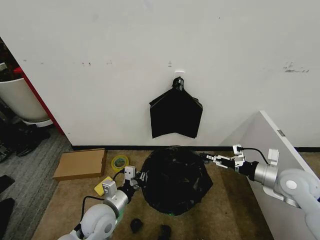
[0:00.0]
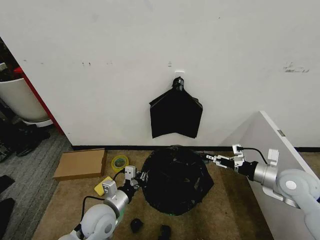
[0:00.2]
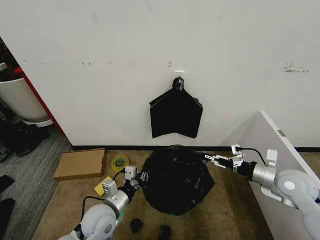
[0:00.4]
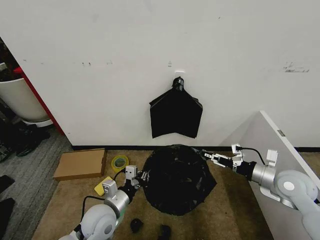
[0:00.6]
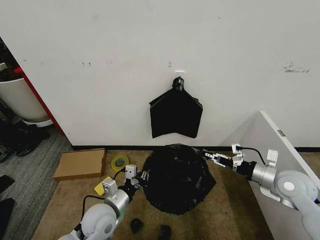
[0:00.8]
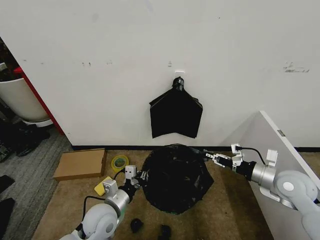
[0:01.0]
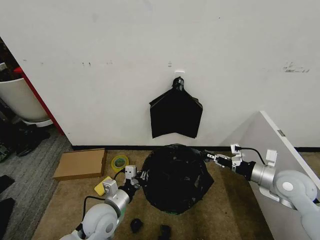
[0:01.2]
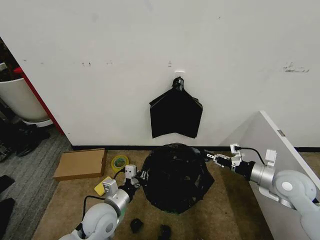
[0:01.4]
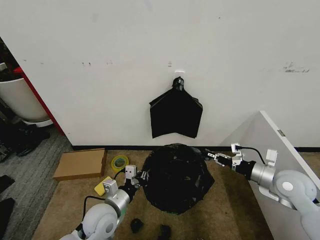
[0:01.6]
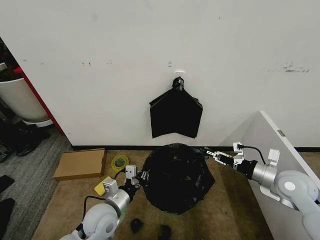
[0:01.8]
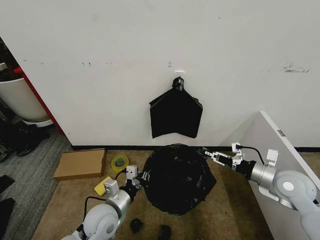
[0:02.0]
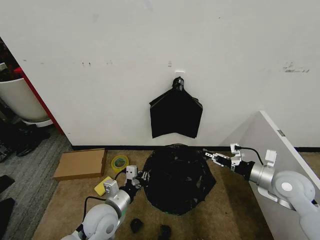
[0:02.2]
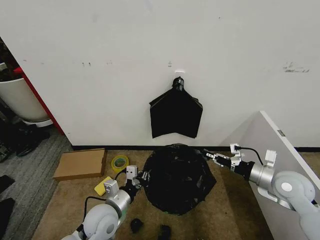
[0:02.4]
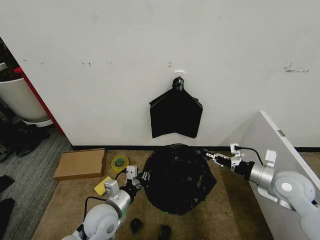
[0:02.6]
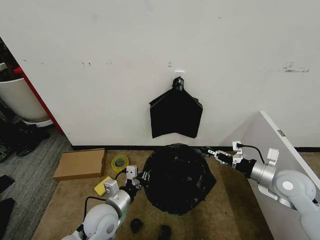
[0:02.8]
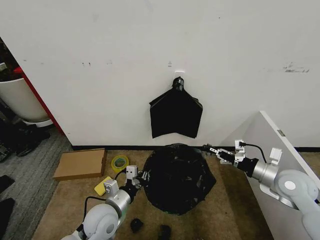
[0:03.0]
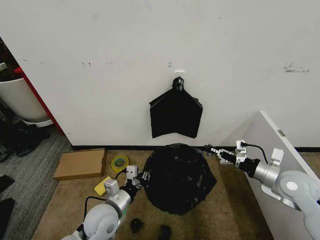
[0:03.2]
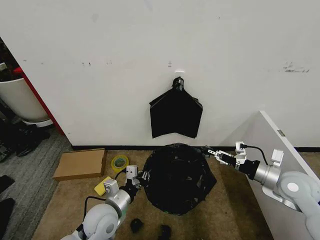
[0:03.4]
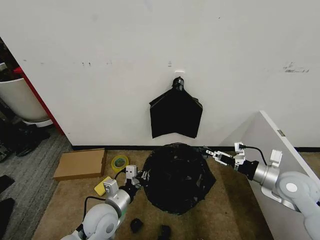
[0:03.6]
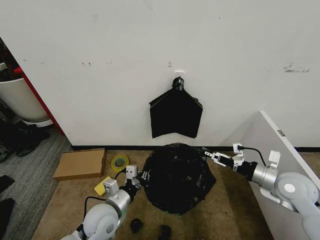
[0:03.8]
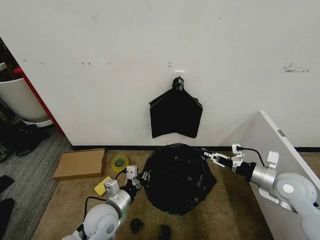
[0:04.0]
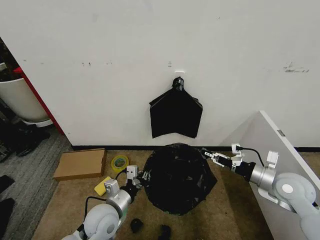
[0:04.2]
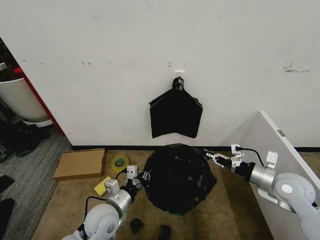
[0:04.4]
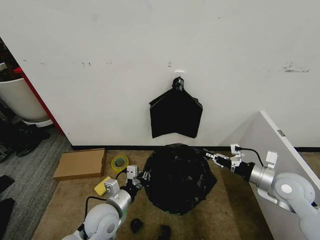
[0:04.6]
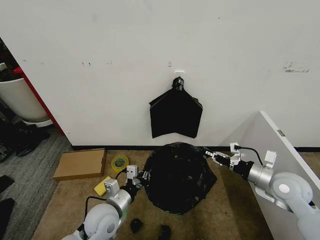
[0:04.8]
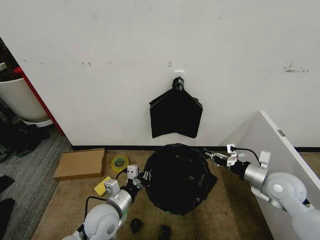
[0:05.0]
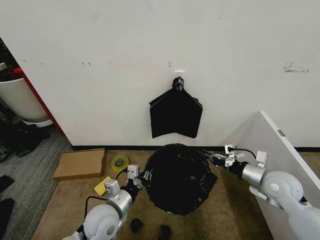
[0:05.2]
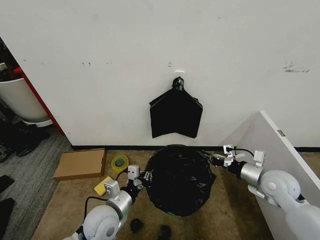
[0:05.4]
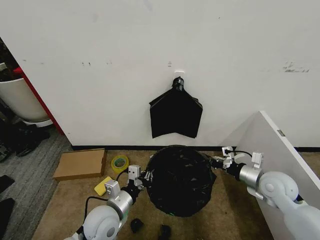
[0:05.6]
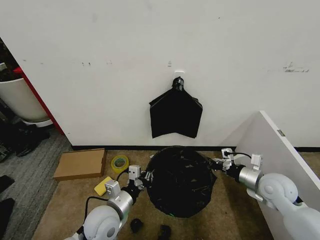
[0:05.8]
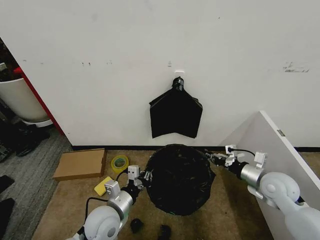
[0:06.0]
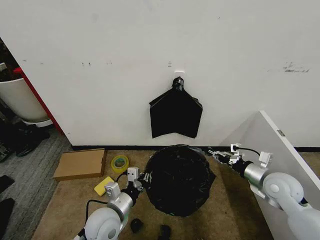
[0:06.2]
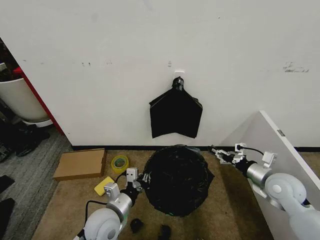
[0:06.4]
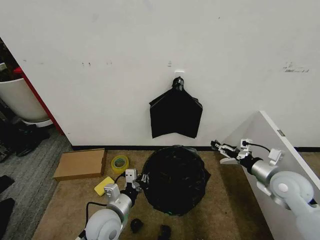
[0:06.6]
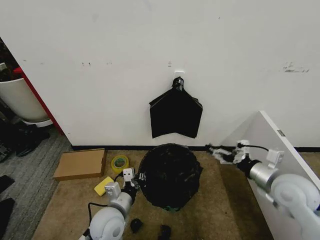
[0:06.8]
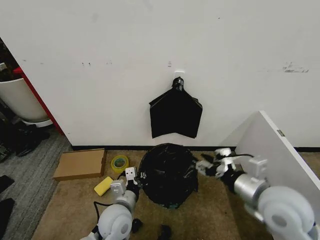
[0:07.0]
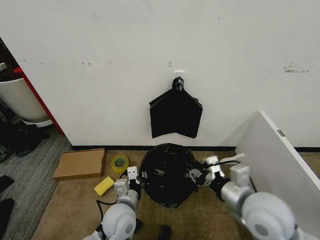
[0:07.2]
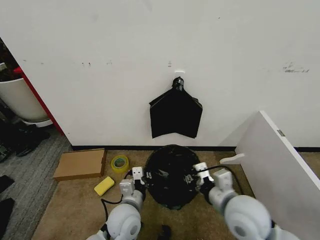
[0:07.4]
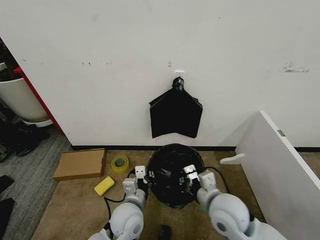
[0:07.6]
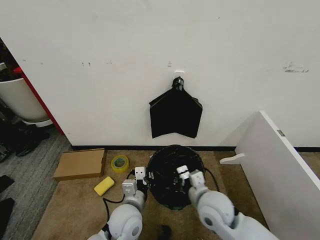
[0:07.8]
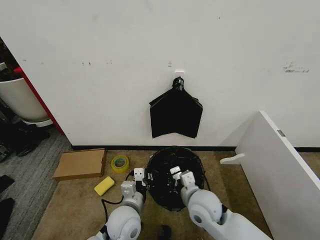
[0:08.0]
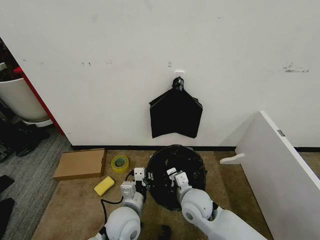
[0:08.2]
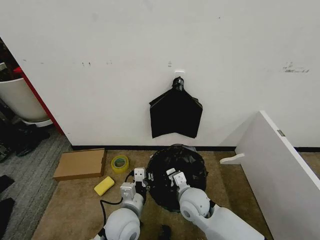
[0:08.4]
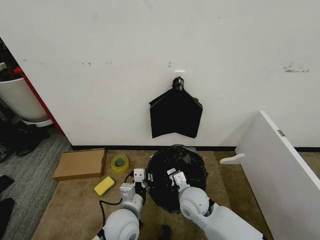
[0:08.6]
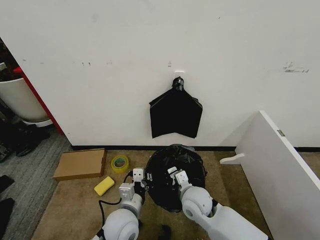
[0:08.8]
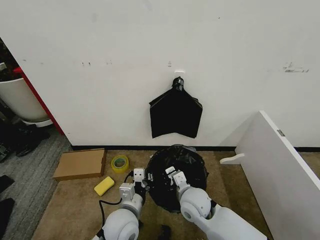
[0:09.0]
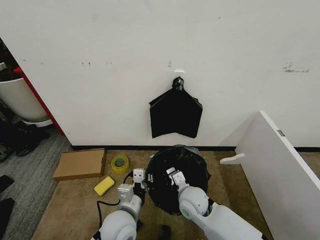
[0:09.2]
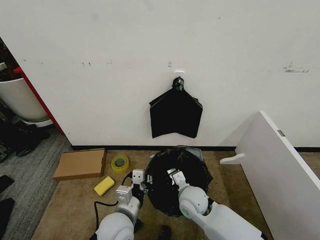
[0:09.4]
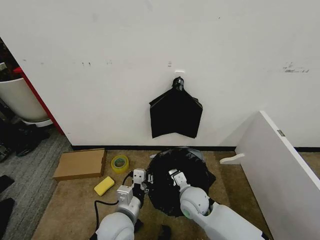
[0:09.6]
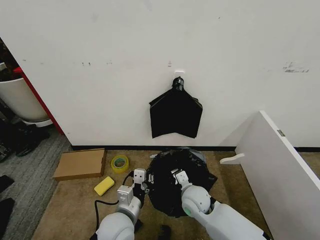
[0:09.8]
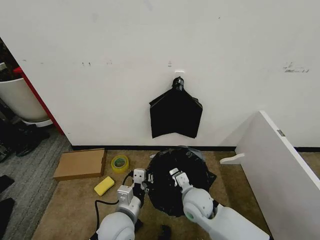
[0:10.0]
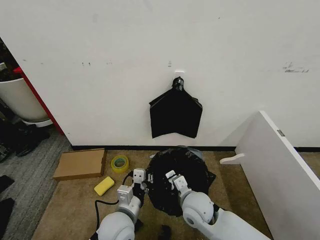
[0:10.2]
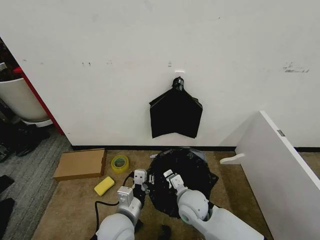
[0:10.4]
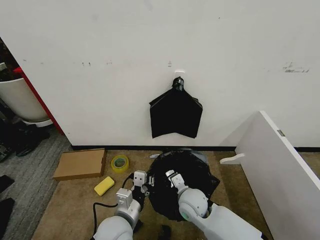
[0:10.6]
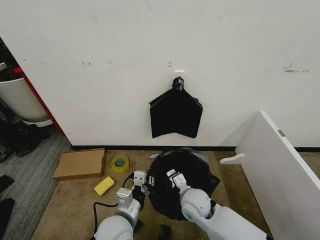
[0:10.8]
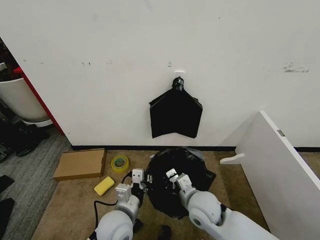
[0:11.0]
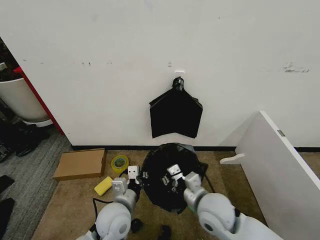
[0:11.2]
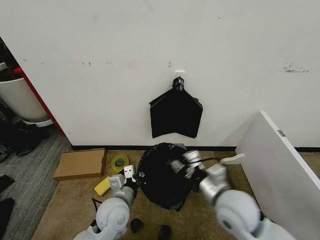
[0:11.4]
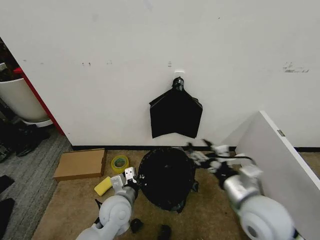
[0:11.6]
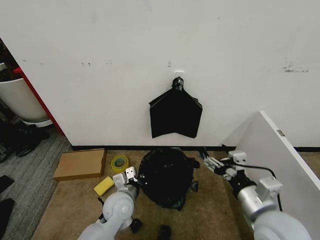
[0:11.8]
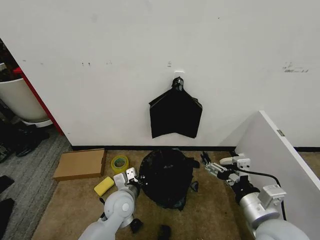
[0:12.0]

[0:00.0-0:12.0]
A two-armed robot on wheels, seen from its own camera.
Task of the whole recording: Place the garbage bag over the trash bin.
0:00.0 to 0:01.6: The right gripper closes.
0:01.6 to 0:03.0: The two grippers keep their place.
0:03.0 to 0:04.4: The right gripper opens and closes again.
0:04.4 to 0:06.0: The grippers make only small movements.
0:06.0 to 0:07.6: The left gripper heads to the right, covering roughly 5 cm, while the right gripper goes approximately 20 cm to the left, and opens, then closes again.
0:07.6 to 0:09.0: The right gripper heads downward and to the left, covering roughly 10 cm.
0:09.0 to 0:10.4: The grippers make only small movements.
0:10.4 to 0:12.0: The right gripper travels to the right, upward and backward by approximately 25 cm, and opens its fingers. The left gripper moves forward, roughly 10 cm.

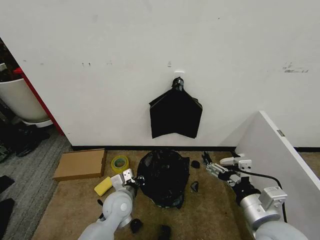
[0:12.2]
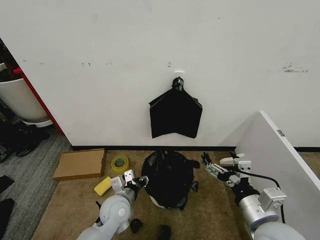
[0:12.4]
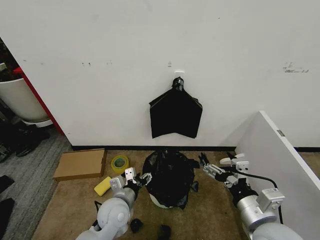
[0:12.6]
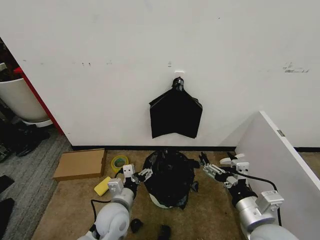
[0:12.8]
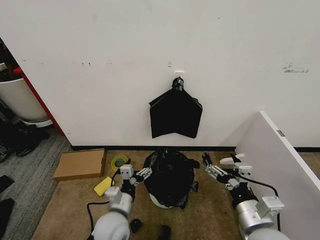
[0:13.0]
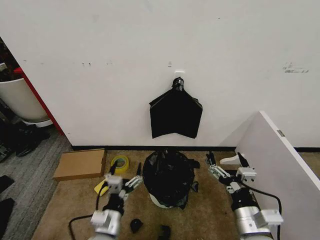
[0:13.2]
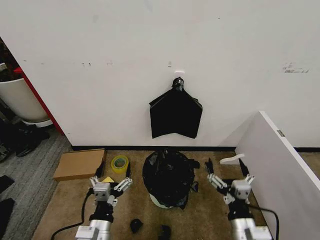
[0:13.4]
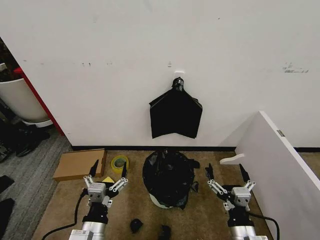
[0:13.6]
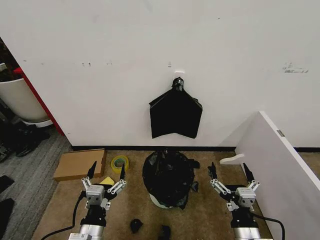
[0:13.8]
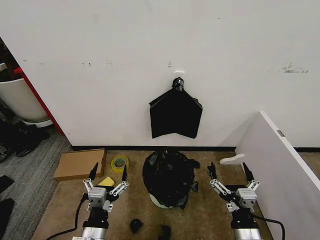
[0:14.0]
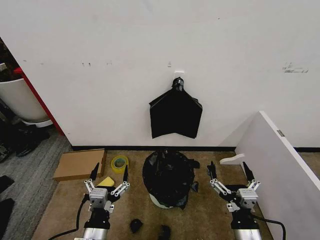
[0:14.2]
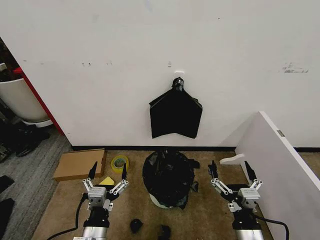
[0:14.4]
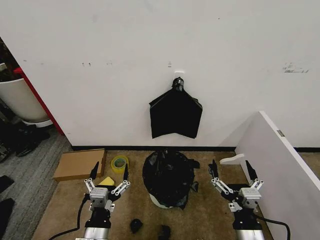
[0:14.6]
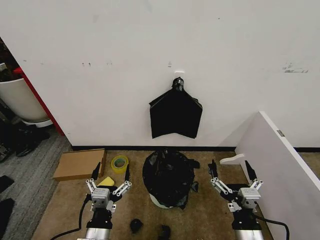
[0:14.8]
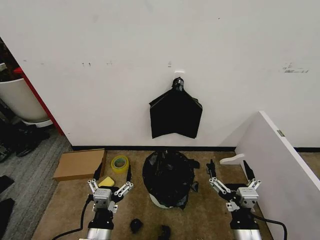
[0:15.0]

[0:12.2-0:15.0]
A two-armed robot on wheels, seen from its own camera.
Task of the whole recording: Place the garbage bag over the trash bin.
0:12.2 to 0:13.6: The left gripper is displaced backward by some 15 cm, and opens its fingers, while the right gripper shifts roughly 10 cm downward.
0:13.6 to 0:15.0: The grippers move only a little.
